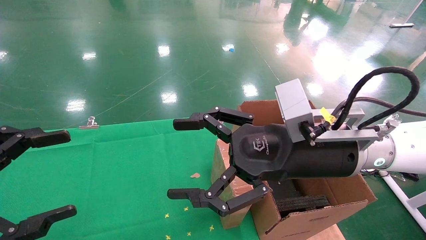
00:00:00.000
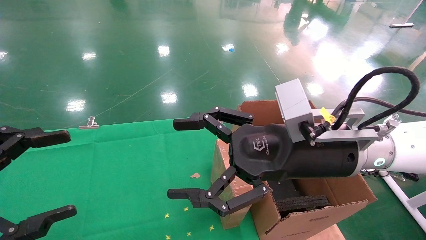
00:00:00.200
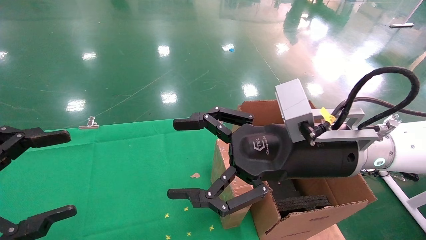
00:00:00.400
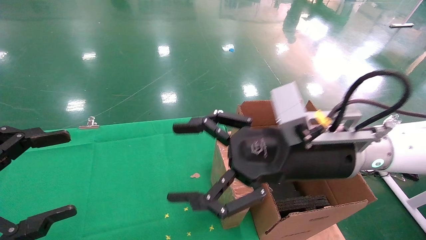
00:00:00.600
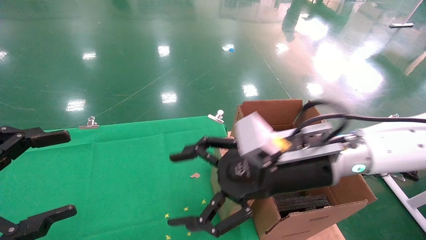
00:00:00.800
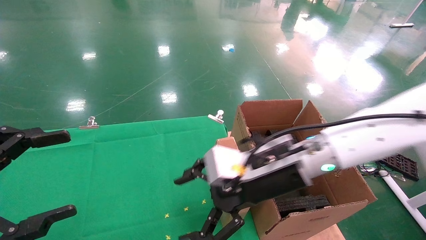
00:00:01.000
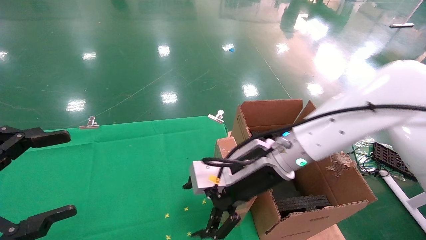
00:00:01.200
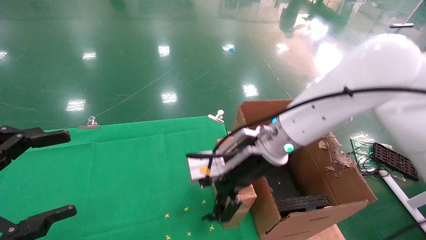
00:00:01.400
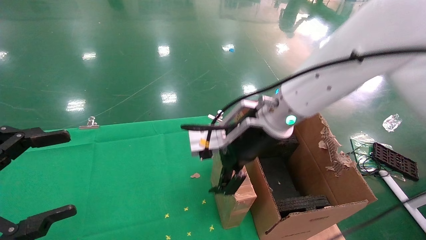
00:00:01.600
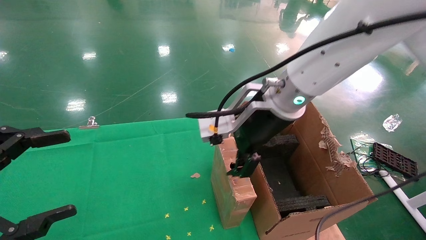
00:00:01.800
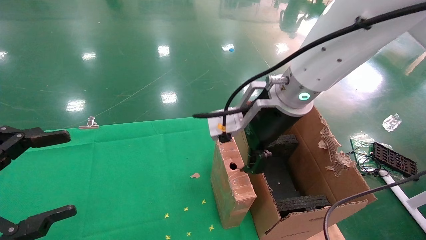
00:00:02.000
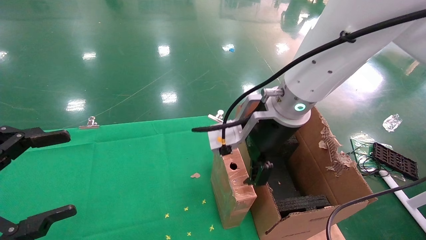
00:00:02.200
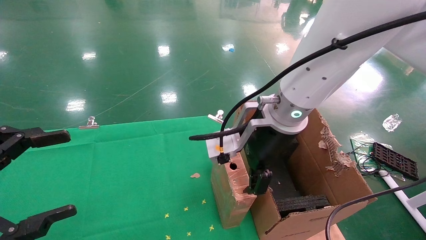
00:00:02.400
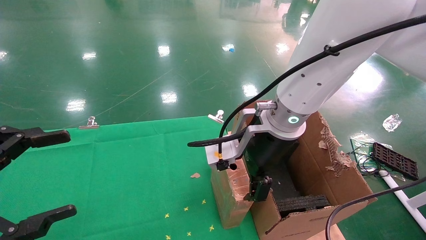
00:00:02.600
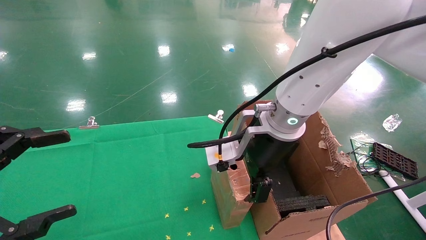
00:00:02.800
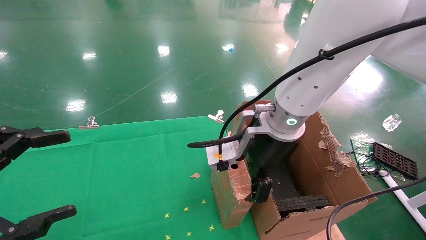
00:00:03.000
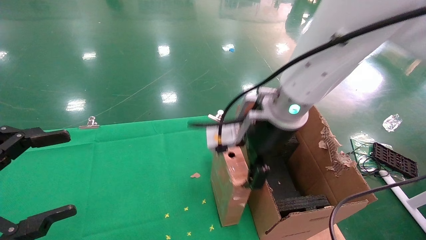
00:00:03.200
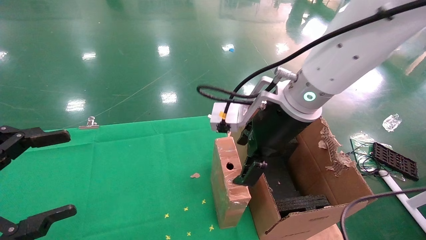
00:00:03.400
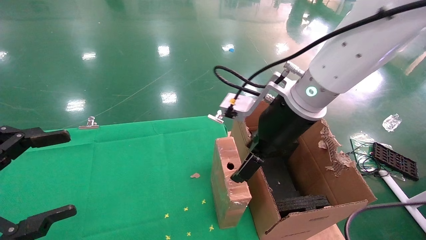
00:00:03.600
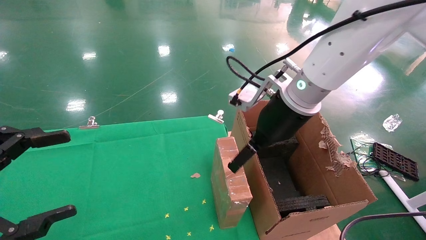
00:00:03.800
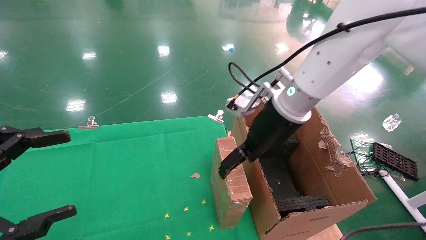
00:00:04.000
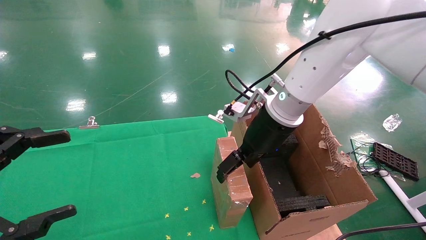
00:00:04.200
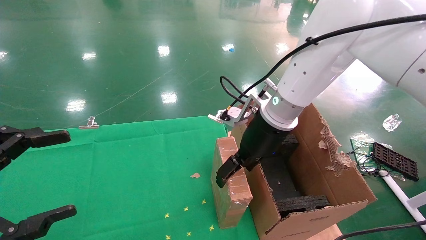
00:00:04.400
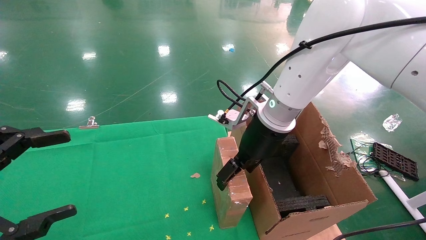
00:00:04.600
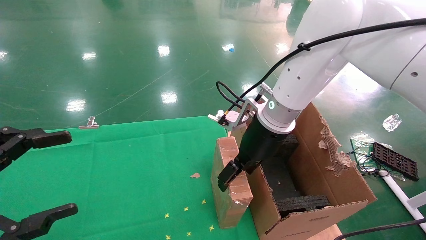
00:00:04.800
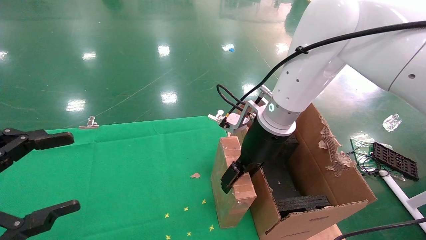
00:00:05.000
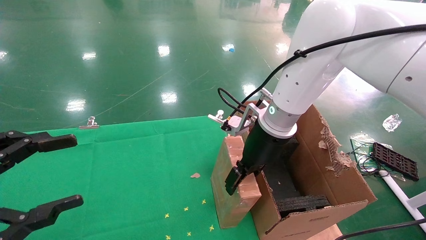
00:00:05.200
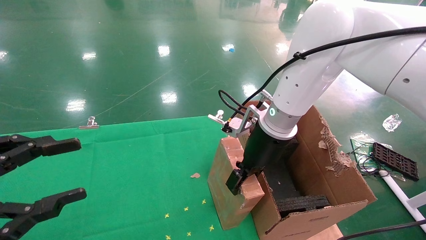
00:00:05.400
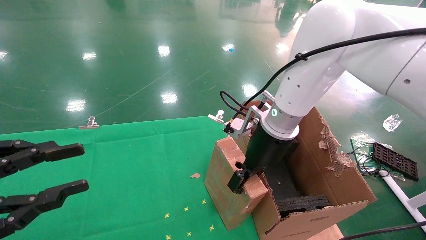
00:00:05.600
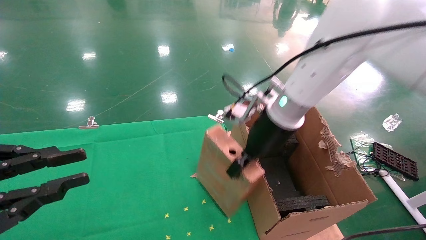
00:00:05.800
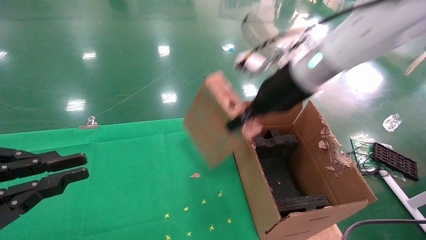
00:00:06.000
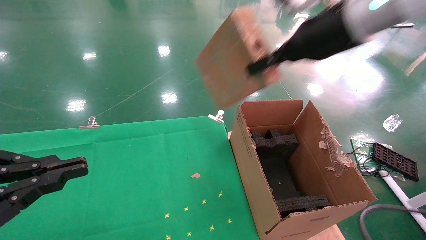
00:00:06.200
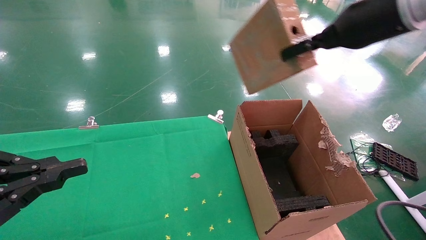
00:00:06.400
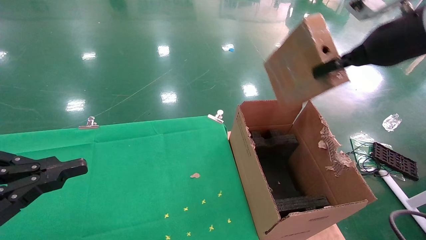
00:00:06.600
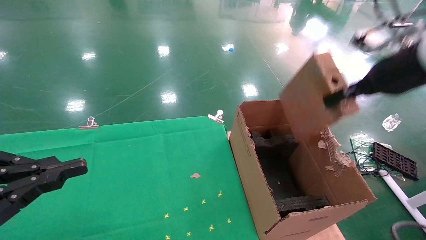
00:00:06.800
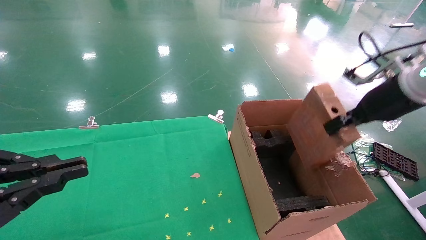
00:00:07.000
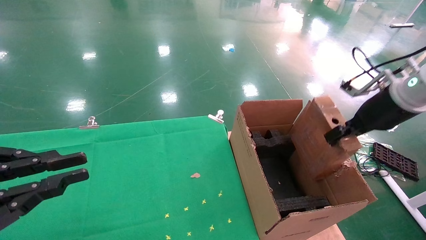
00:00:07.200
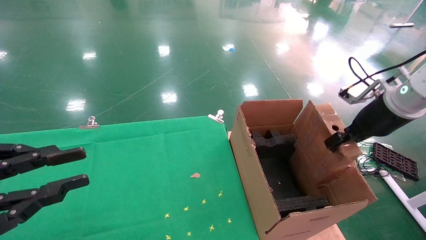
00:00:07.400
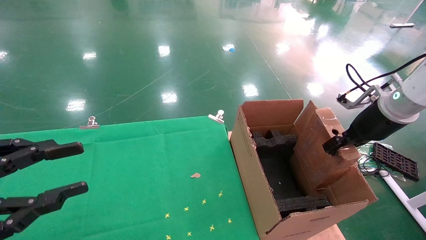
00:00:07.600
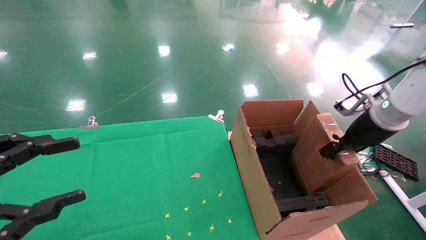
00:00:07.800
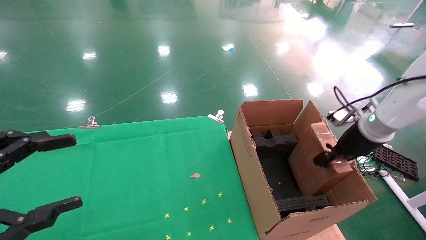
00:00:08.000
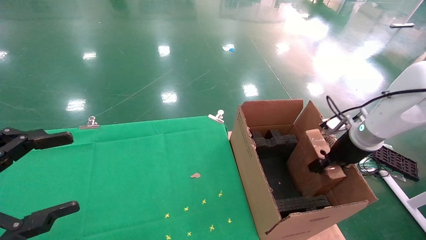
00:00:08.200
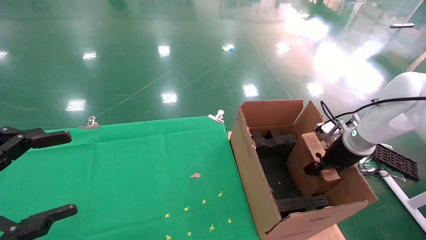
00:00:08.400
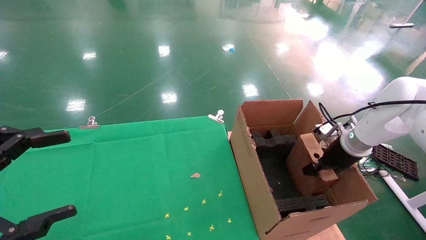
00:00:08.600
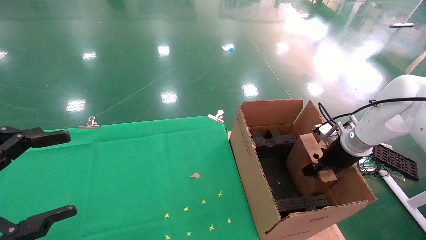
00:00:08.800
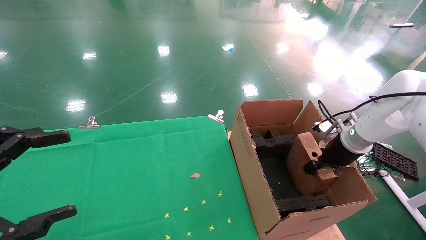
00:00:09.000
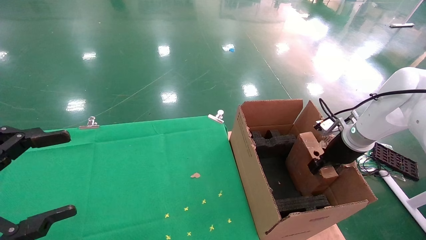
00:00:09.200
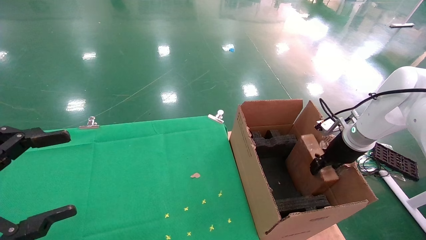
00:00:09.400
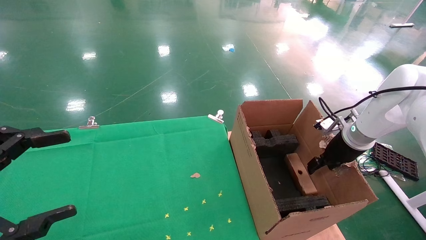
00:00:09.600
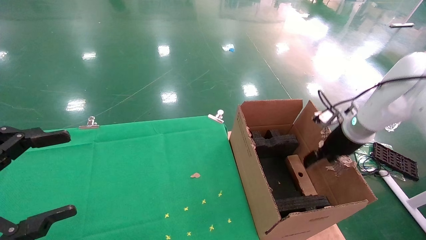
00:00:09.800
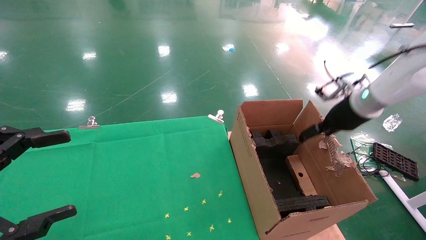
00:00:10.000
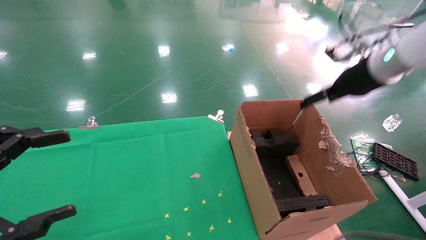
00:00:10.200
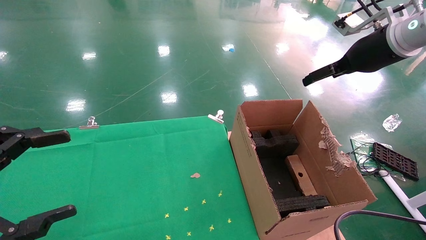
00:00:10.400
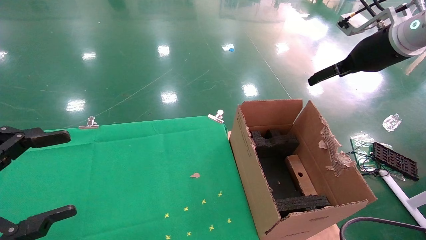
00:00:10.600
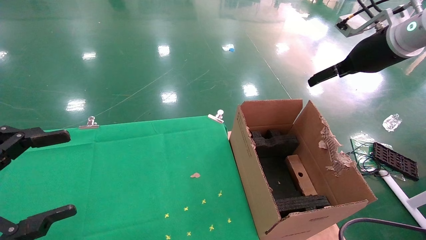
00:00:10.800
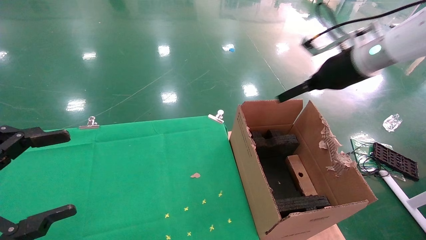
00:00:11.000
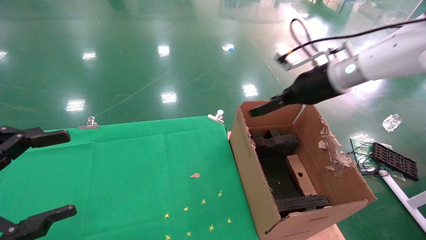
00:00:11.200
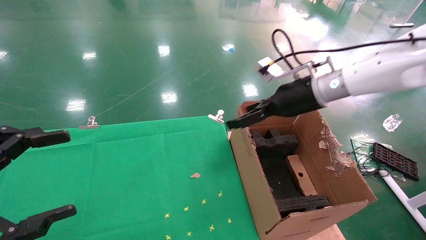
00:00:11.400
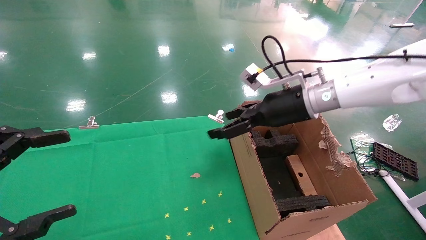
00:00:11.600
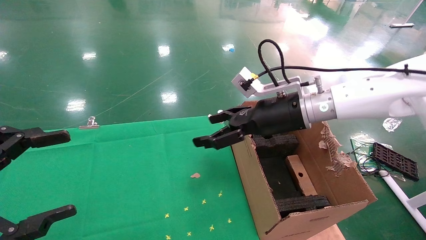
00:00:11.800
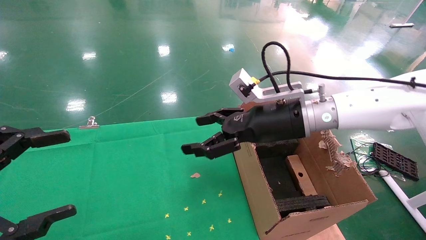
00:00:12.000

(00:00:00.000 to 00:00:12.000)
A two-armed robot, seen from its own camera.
Task of the whole recording: using a robotic arm to pick up a cardboard box and palace it the carton.
Step, 00:00:01.000 - 00:00:05.600: Pick up the mouse and the power cord paper box.
Step, 00:00:05.800 - 00:00:10.200: Place the mouse and the power cord paper box into the container.
00:00:00.000 - 00:00:01.600: The right gripper heads forward and to the left, covering roughly 10 cm.
00:00:01.600 - 00:00:03.000: There are only small adjustments of the grippers.
00:00:03.000 - 00:00:04.400: The right gripper moves some 5 cm.
00:00:04.400 - 00:00:06.000: The right gripper travels upward and to the right by approximately 10 cm, and closes up; the left gripper closes.
00:00:06.000 - 00:00:07.600: The right gripper shifts some 20 cm to the right and downward.
00:00:07.600 - 00:00:09.000: The right gripper shifts some 10 cm downward and forward. Meanwhile the left gripper opens.
00:00:09.000 - 00:00:10.400: The right gripper shifts approximately 20 cm upward, and opens up.
00:00:10.400 - 00:00:12.000: The right gripper shifts approximately 25 cm to the left and downward.

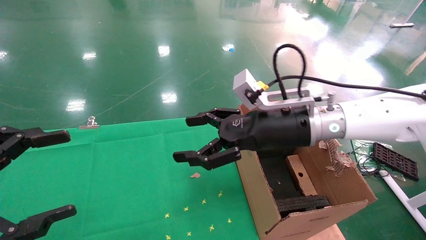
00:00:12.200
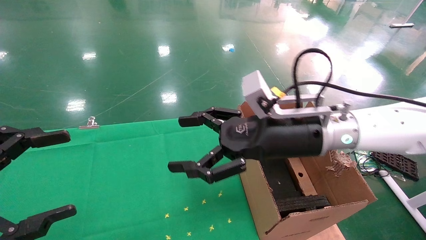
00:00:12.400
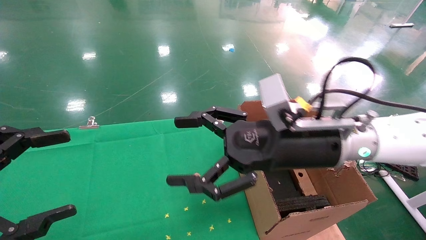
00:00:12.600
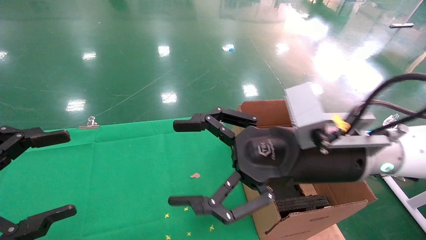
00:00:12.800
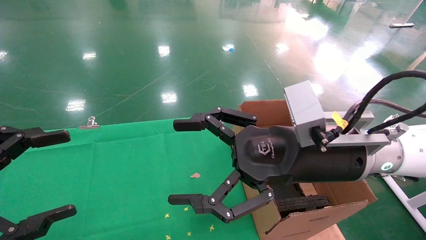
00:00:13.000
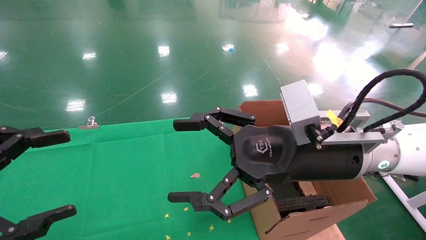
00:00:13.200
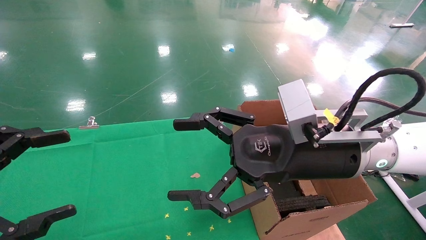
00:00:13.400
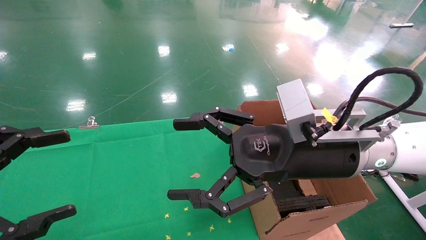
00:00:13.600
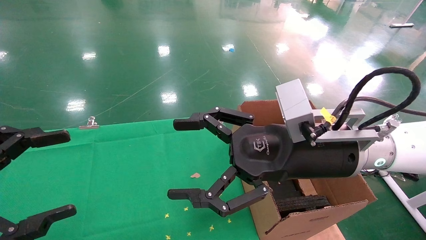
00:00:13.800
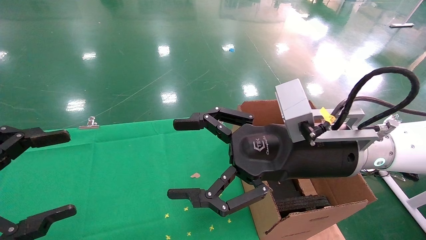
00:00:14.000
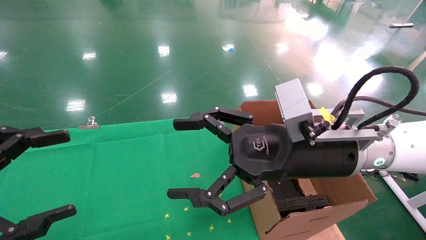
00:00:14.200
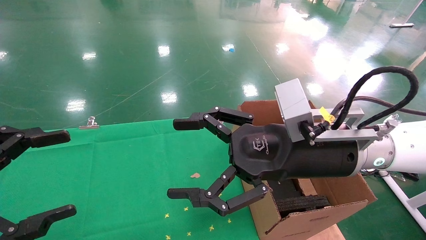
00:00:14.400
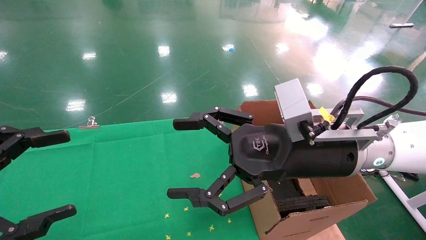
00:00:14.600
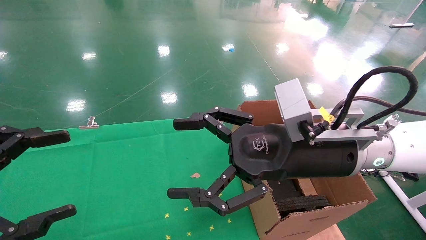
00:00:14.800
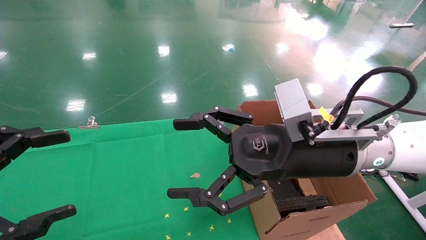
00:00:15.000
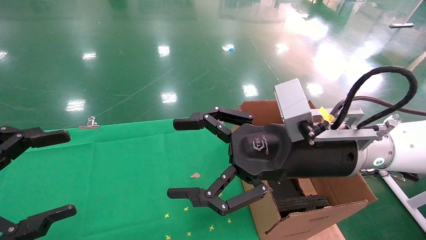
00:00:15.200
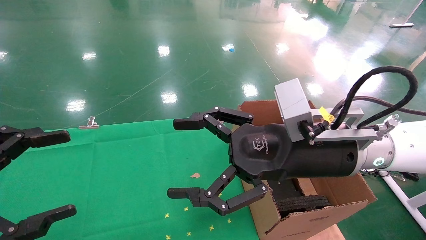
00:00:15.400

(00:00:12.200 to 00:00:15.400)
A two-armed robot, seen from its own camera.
Task of the whole recording: using a robotic arm to pick up a cardboard box and palace it the carton.
00:00:12.200 - 00:00:13.800: The right gripper is displaced backward by about 10 cm.
00:00:13.800 - 00:00:15.400: Both grippers stay about where they are.
